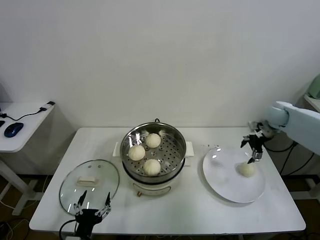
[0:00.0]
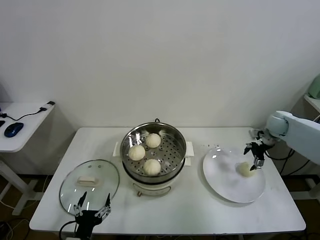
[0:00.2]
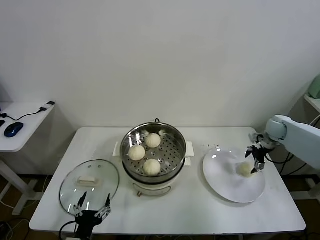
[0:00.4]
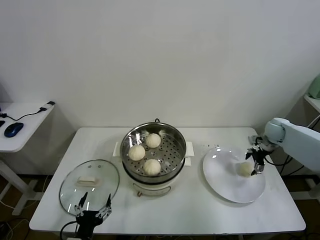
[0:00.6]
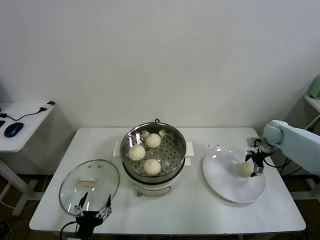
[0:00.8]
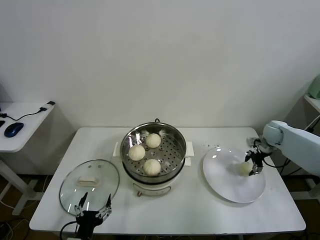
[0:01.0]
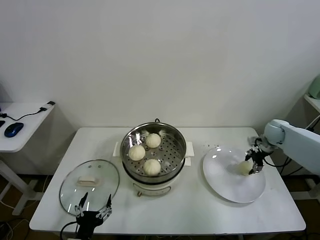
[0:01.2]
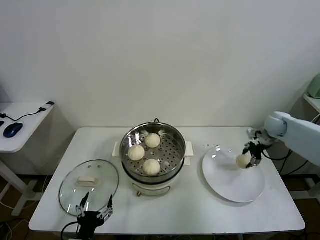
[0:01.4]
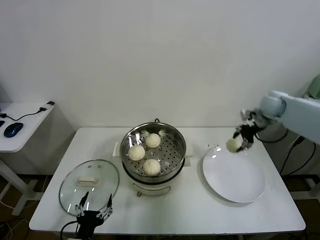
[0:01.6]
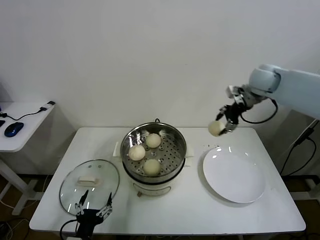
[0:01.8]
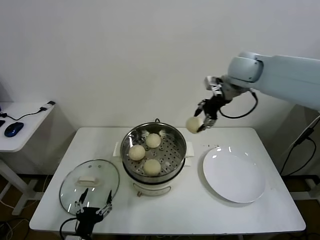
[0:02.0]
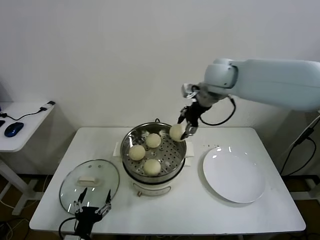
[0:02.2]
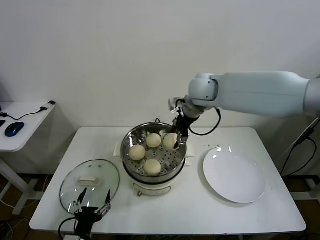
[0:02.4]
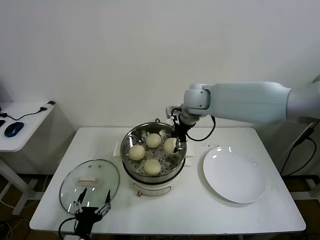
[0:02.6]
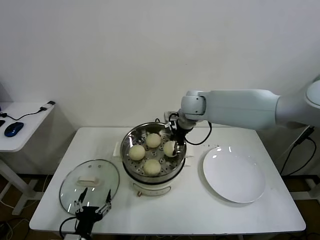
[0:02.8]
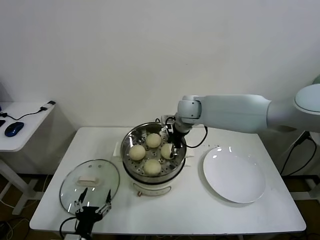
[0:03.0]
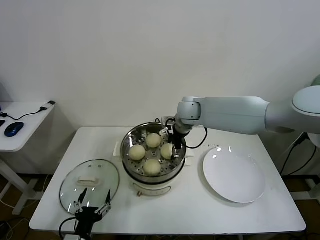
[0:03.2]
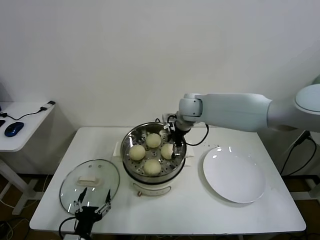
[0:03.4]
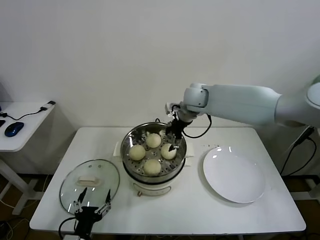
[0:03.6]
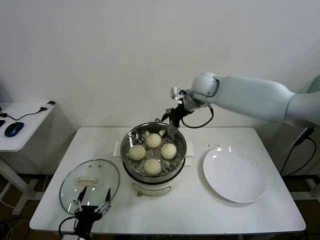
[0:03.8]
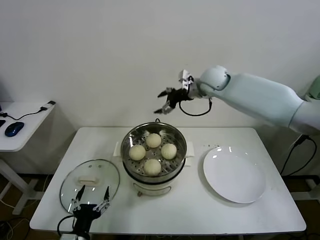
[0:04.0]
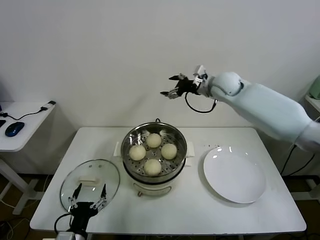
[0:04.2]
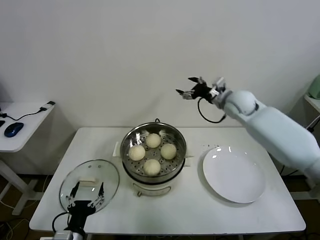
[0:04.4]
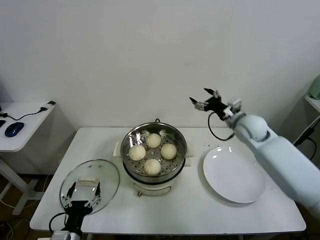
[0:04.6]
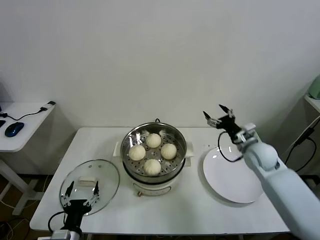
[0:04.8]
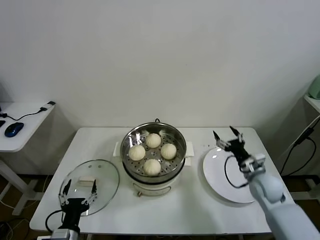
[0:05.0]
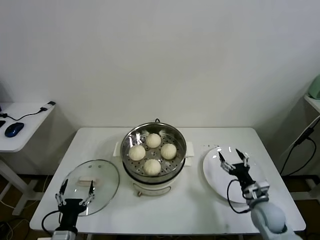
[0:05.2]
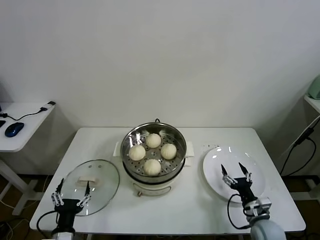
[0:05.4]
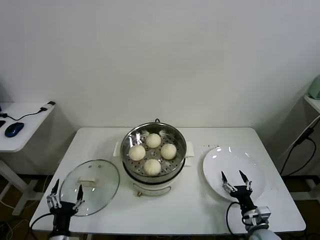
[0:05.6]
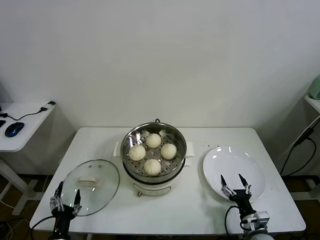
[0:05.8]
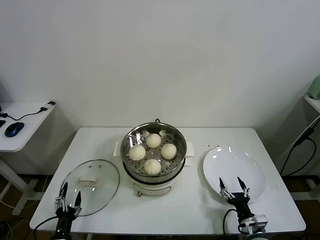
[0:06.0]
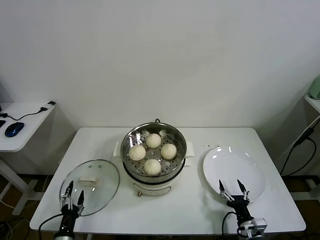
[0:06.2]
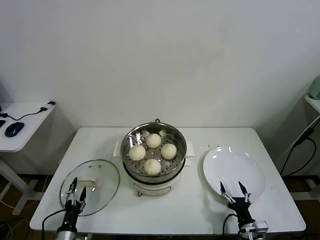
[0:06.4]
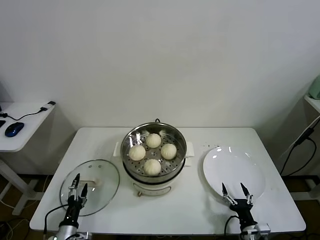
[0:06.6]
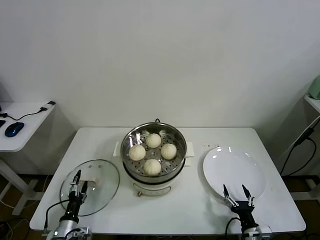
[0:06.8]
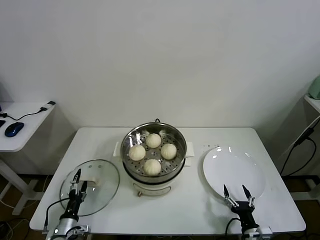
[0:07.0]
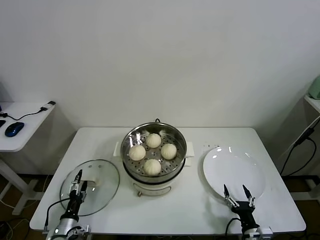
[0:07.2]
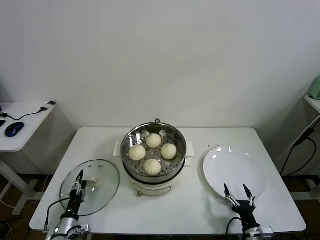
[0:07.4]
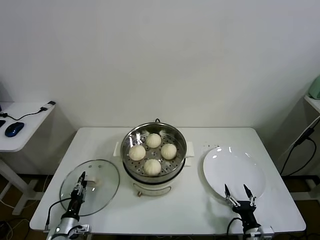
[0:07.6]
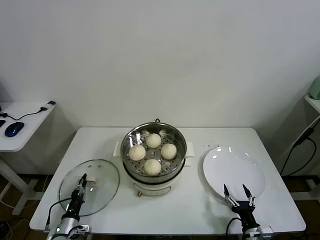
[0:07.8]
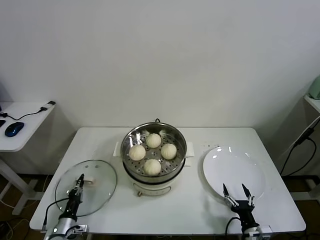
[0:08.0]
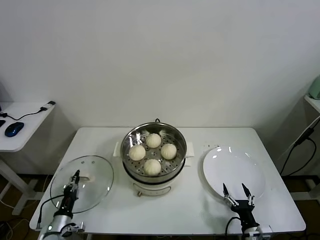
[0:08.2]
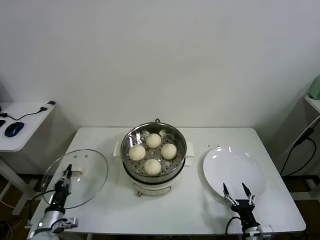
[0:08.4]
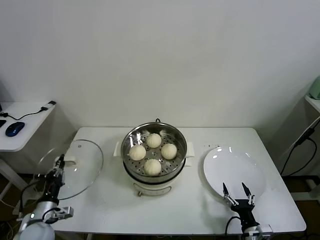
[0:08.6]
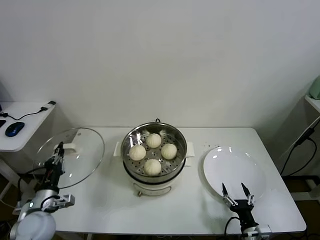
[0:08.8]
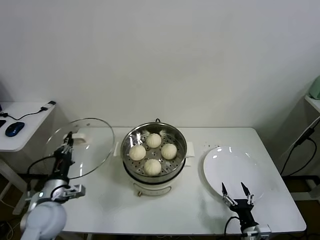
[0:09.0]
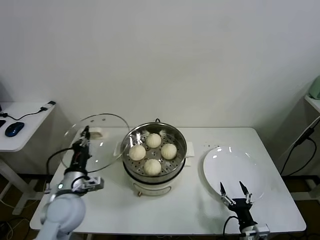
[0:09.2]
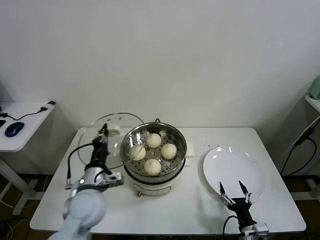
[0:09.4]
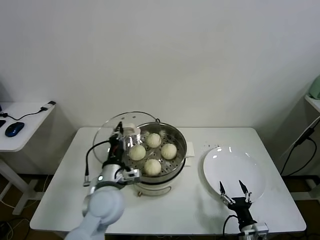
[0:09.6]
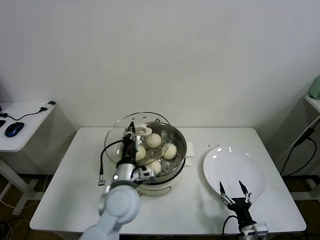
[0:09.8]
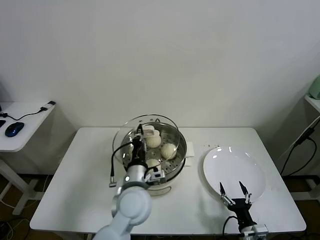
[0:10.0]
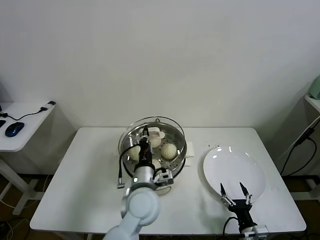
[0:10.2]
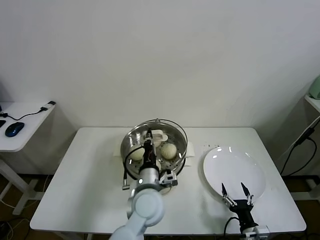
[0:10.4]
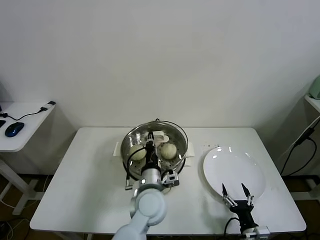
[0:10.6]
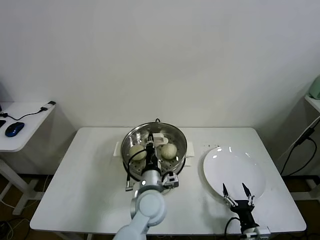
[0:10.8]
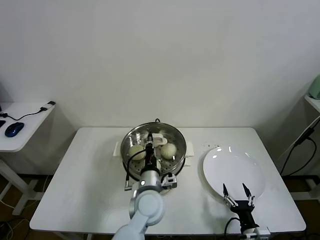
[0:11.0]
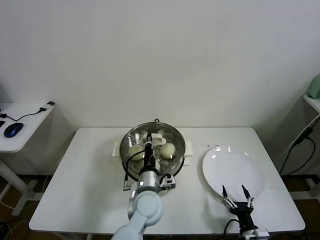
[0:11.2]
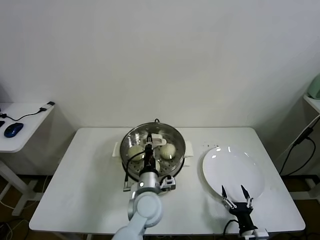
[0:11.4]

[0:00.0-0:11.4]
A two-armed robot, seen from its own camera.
Task of the whole recording: take steamed baozi put them in steamer.
Step, 0:01.4 to 0:03.4: Place the baozi on the steamer with right gripper.
Step, 0:03.6 to 0:08.0: Grasp the pot lid with left gripper.
0:00.0 to 0:01.4: The right gripper moves roughly 10 cm downward and comes back, and closes up.
0:01.4 to 0:02.8: The right gripper shifts roughly 35 cm to the left.
0:02.8 to 0:04.2: The right gripper moves to the right, some 10 cm, and opens up.
0:04.2 to 0:05.6: The left gripper shifts roughly 5 cm to the left, while the right gripper heads downward and backward, covering approximately 50 cm.
0:05.6 to 0:07.2: The left gripper heads downward, forward and to the left, covering some 15 cm; the right gripper heads backward, covering approximately 5 cm.
0:07.2 to 0:08.6: The left gripper heads upward, covering some 10 cm, and closes.
0:08.6 to 0:10.0: The left gripper moves to the right and upward, roughly 35 cm.
0:10.0 to 0:11.4: The left gripper goes approximately 5 cm downward.

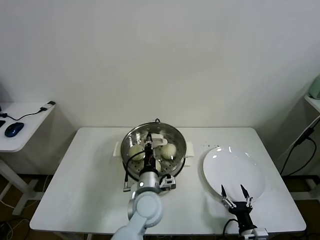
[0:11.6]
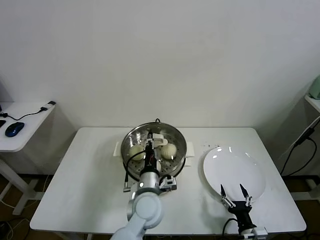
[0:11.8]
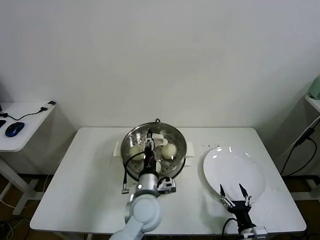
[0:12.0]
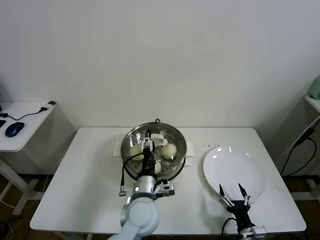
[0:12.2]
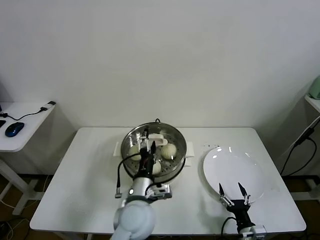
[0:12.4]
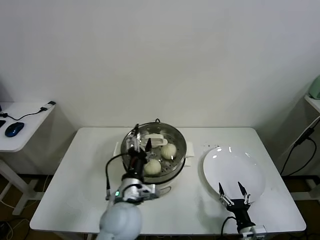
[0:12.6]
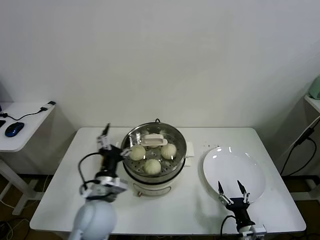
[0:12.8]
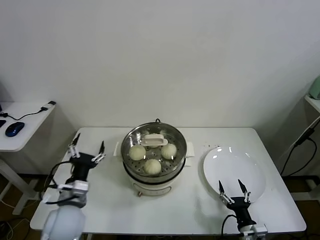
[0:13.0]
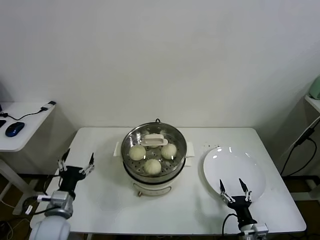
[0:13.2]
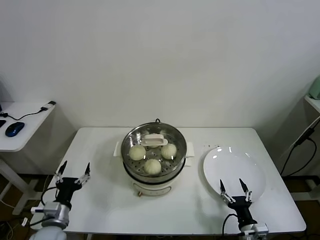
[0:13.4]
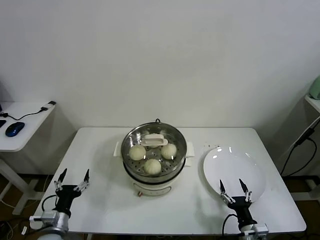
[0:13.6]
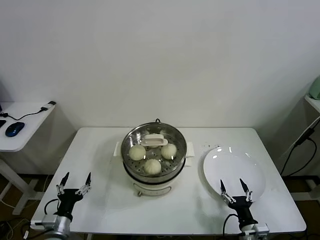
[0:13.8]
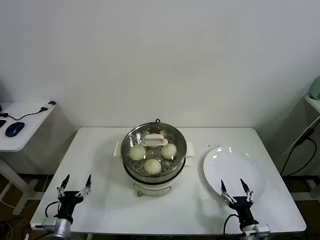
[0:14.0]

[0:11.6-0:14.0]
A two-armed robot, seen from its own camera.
Task of the whole recording: take steamed baozi put them in steamer.
0:11.6 to 0:12.8: The left gripper goes about 10 cm to the left and upward, and opens up.
0:12.8 to 0:14.0: The left gripper moves to the left and downward, approximately 25 cm.

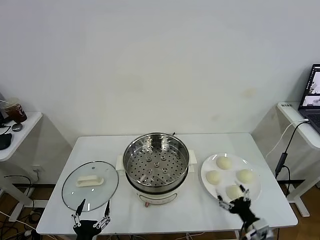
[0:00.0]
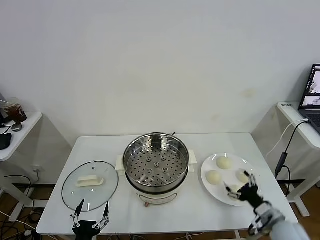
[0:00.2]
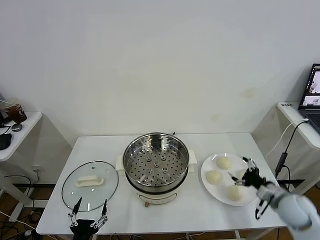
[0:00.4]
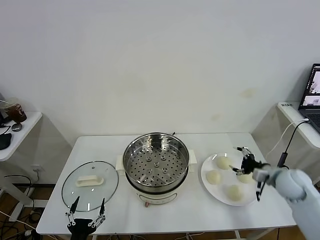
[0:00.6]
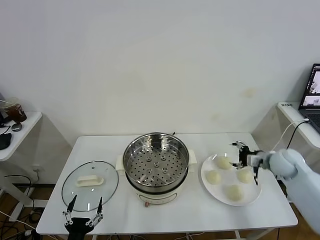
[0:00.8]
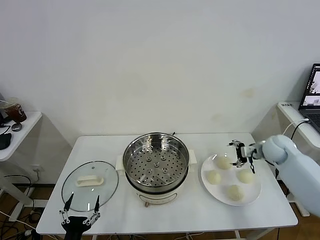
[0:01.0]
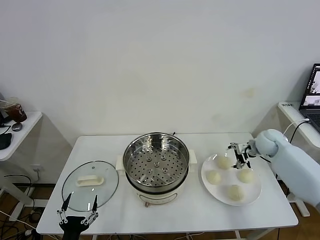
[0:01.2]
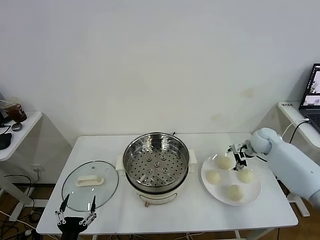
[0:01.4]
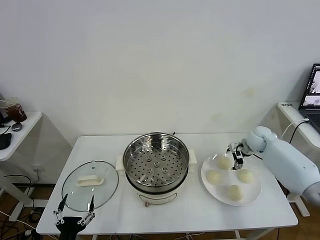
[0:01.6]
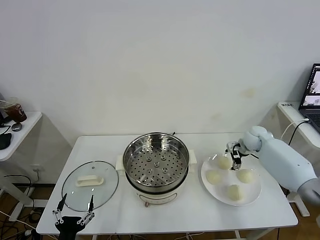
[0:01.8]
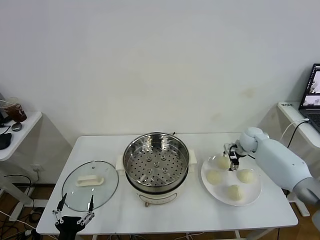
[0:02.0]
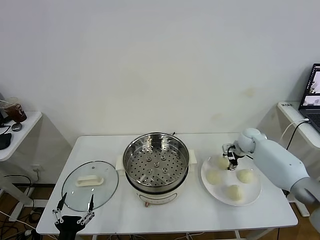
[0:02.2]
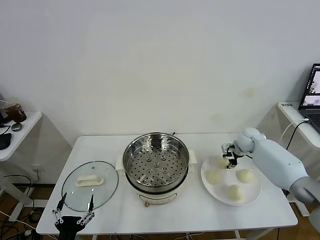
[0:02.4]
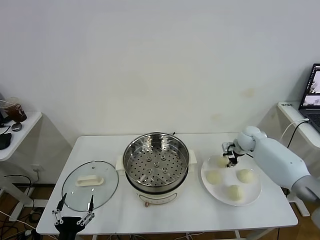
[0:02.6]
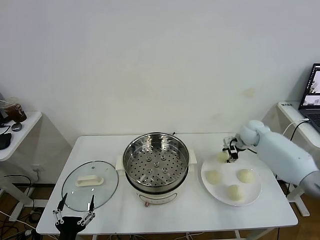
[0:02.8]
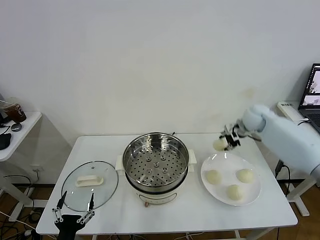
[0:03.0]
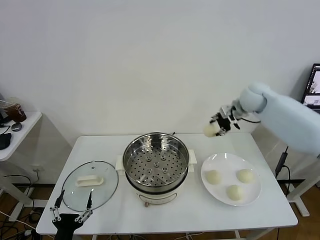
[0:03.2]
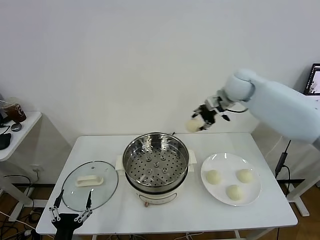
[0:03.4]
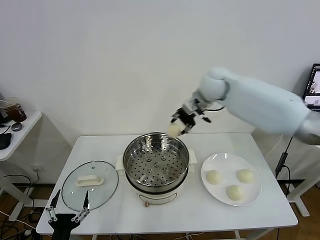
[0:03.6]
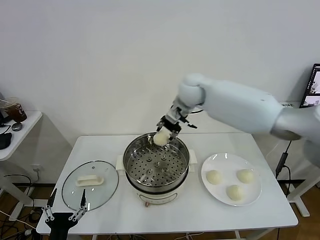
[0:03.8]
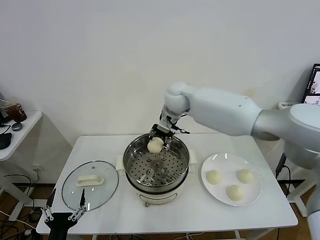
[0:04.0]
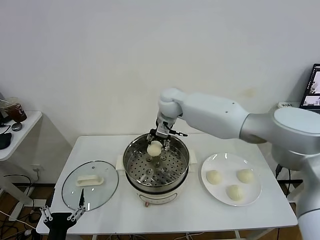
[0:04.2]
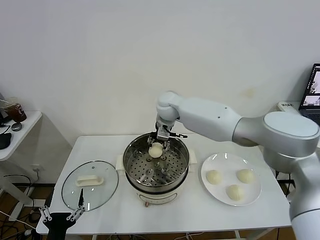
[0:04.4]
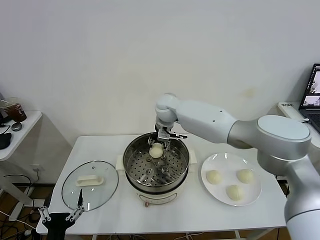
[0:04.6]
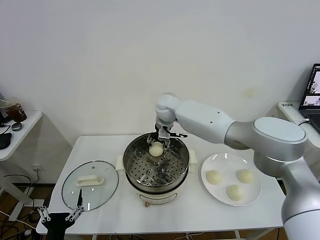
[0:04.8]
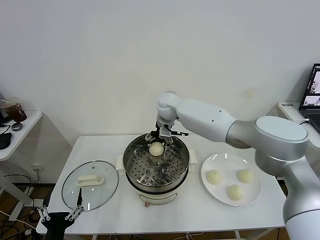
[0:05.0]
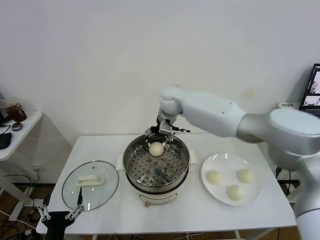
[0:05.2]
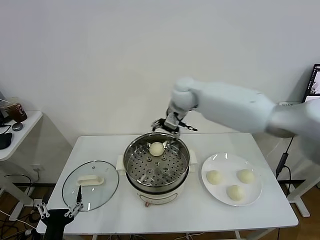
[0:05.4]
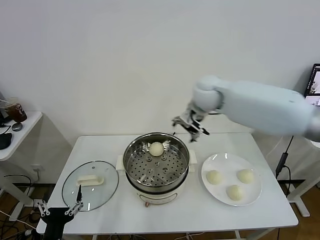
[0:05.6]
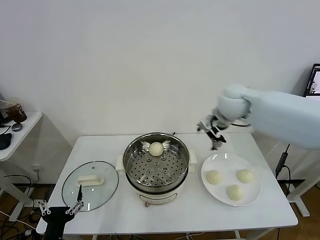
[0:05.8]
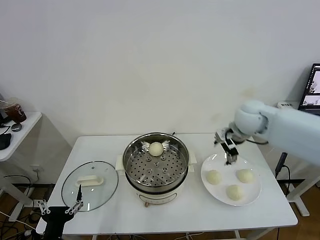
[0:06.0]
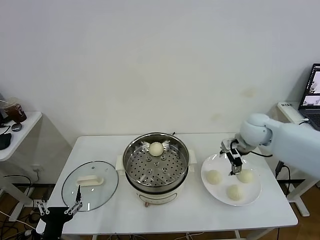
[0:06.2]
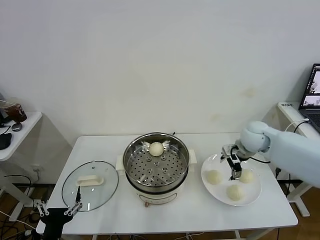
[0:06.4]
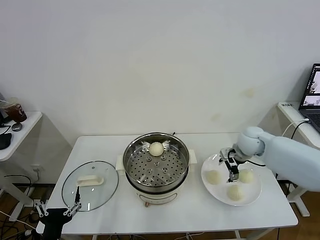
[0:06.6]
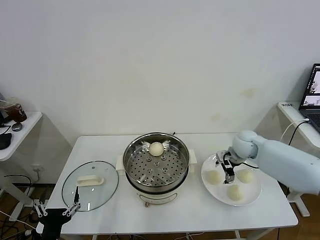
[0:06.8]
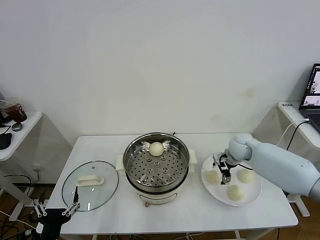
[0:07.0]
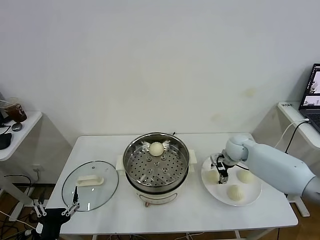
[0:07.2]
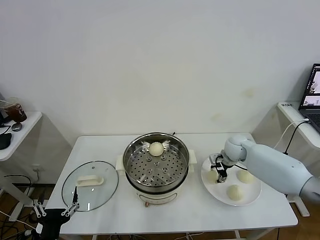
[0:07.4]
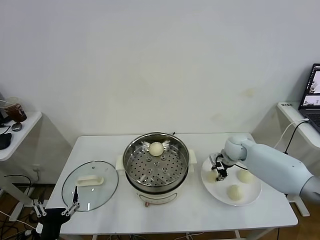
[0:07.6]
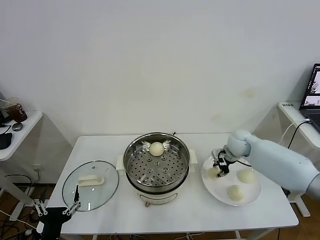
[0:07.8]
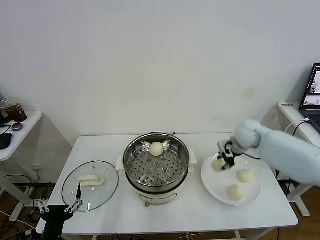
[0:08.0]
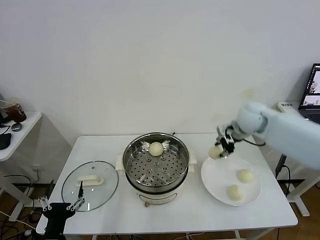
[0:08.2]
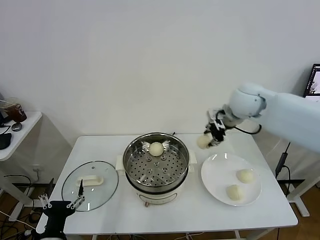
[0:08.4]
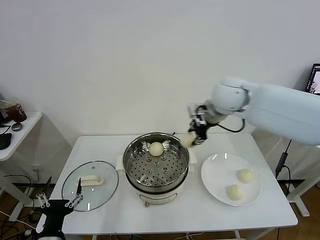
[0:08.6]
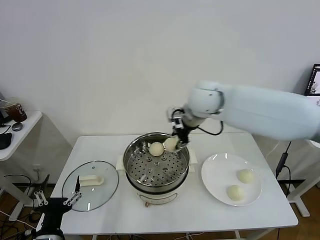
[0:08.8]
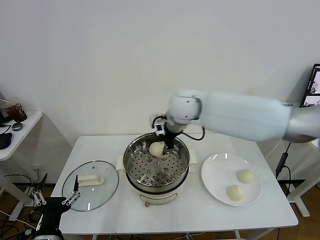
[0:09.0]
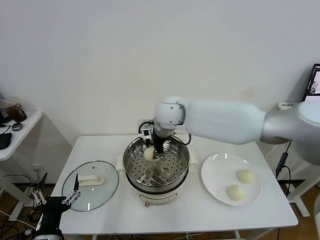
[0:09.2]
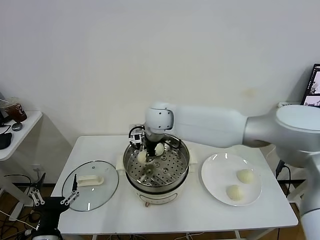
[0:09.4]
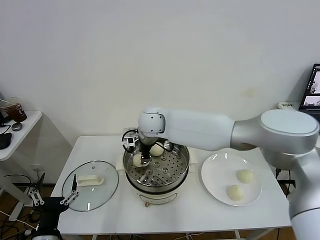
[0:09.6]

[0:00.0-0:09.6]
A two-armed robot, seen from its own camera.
Task of the whole recording: take steamed baozi put them in steamer.
Step, 0:00.0 to 0:02.4: Grasp the baozi in the plate with right gripper.
Step, 0:02.6 to 0:05.2: Place the baozi on the steamer with right gripper.
Step, 0:05.4 to 0:07.4: Grasp the baozi in the plate with right gripper.
0:01.6 to 0:03.2: The right gripper goes approximately 25 cm upward and to the left, and closes.
0:03.2 to 0:04.8: The right gripper heads to the left, covering approximately 25 cm, and opens its fingers.
0:04.8 to 0:06.4: The right gripper goes roughly 30 cm to the right.
0:06.4 to 0:08.0: The right gripper goes downward and returns, about 10 cm each way, and closes its fingers.
0:08.0 to 0:09.6: The right gripper heads to the left, covering approximately 35 cm.
